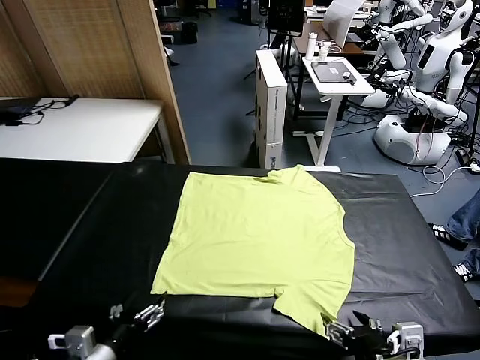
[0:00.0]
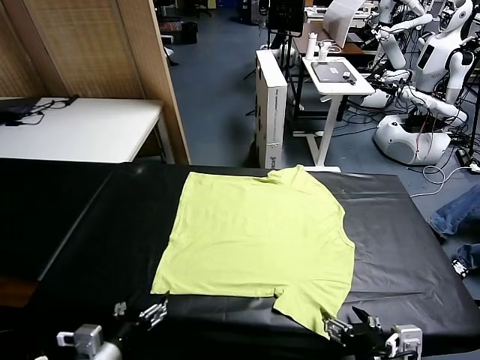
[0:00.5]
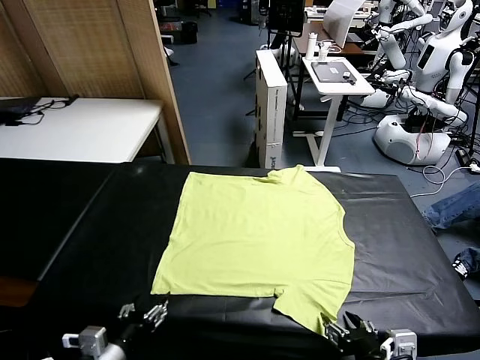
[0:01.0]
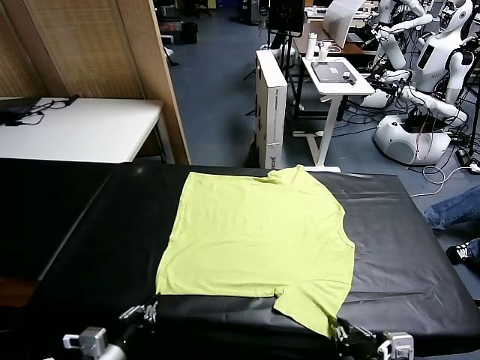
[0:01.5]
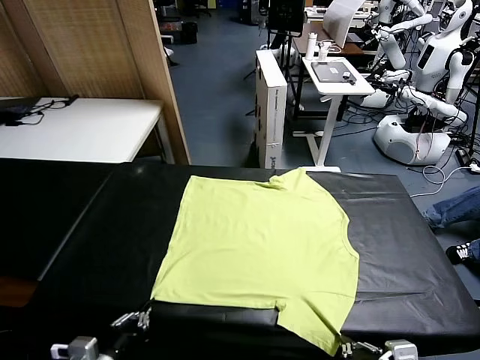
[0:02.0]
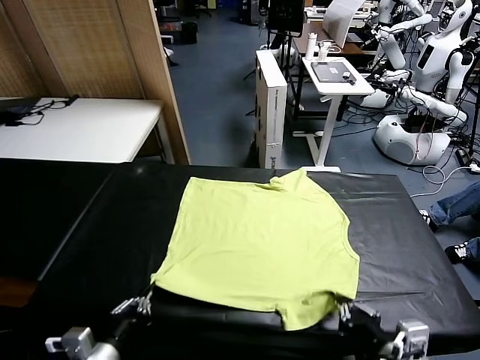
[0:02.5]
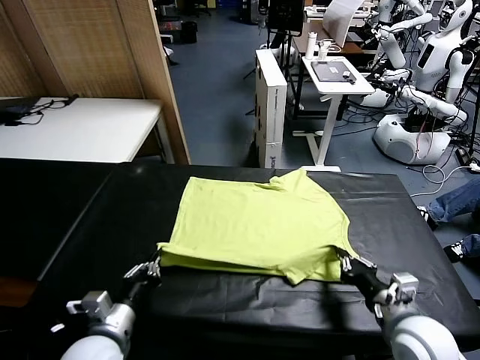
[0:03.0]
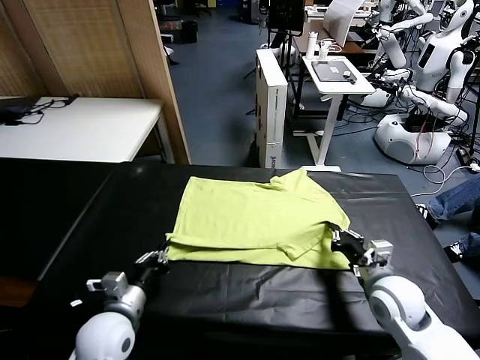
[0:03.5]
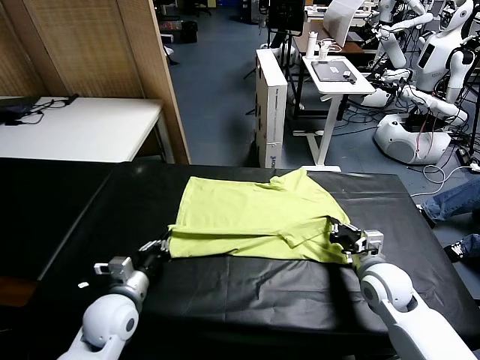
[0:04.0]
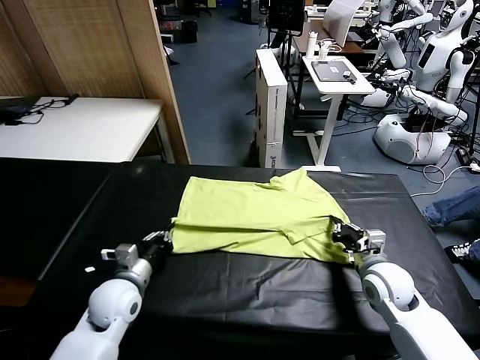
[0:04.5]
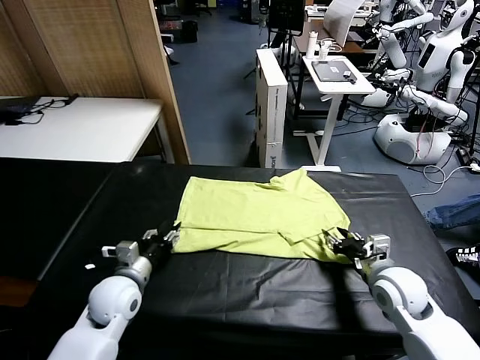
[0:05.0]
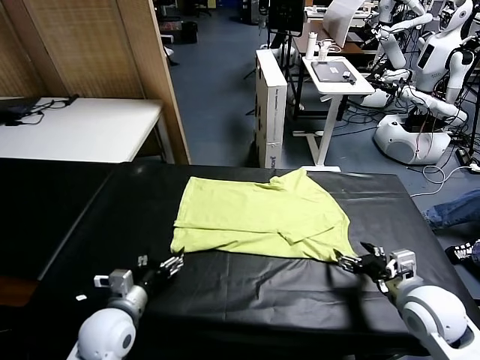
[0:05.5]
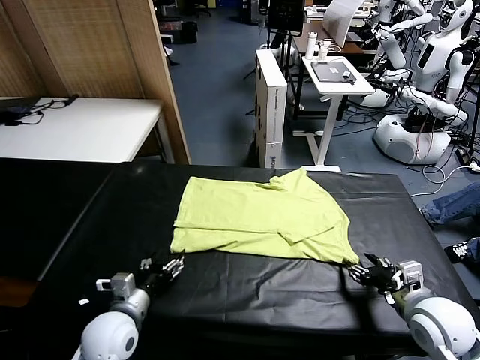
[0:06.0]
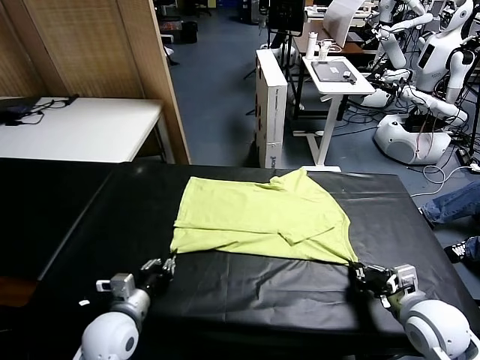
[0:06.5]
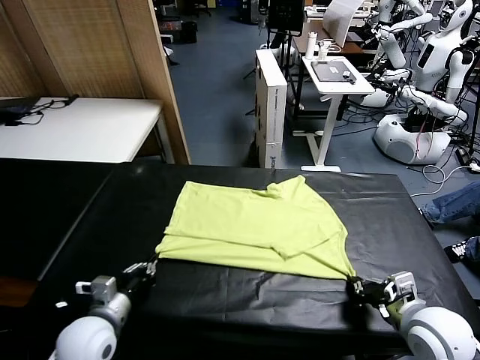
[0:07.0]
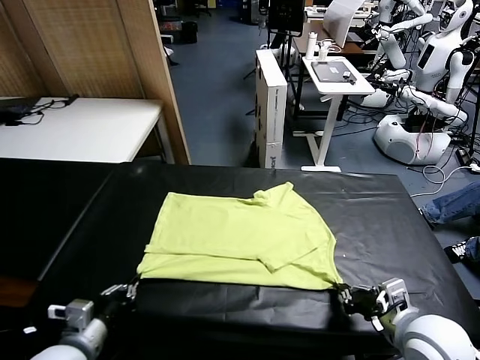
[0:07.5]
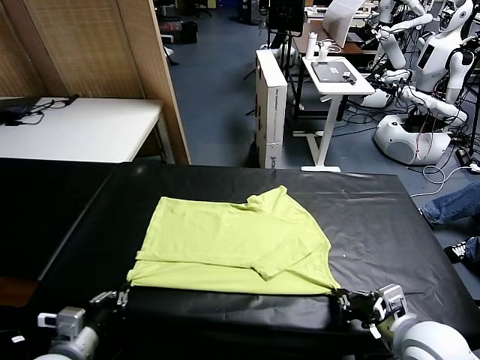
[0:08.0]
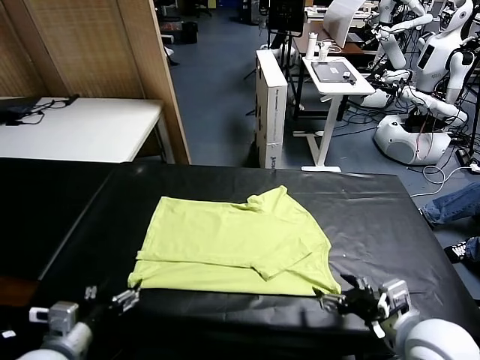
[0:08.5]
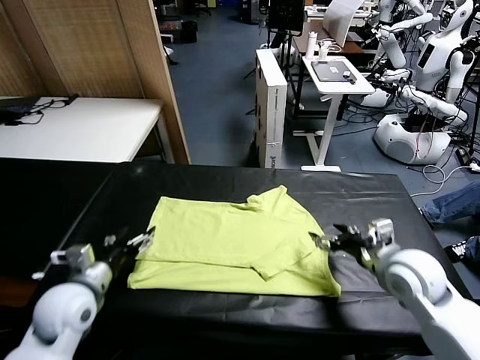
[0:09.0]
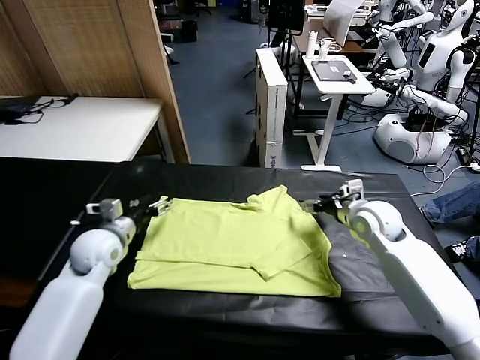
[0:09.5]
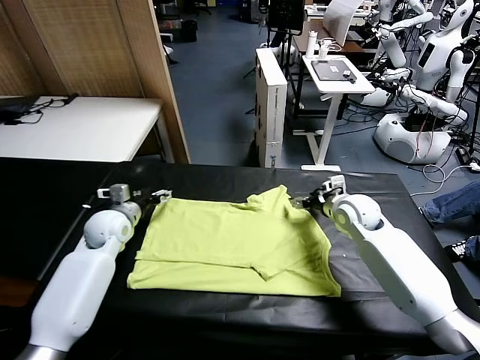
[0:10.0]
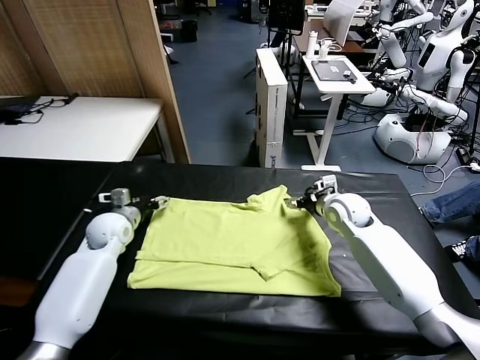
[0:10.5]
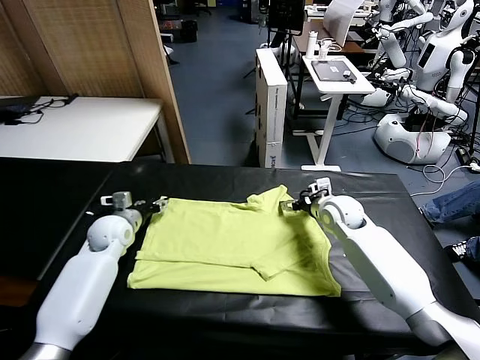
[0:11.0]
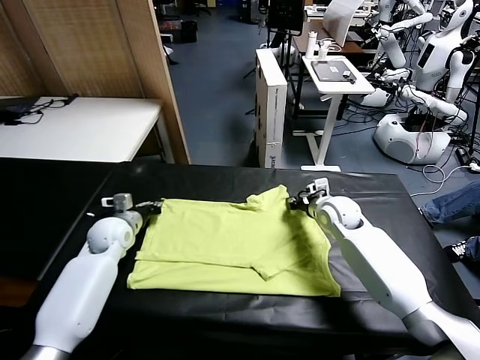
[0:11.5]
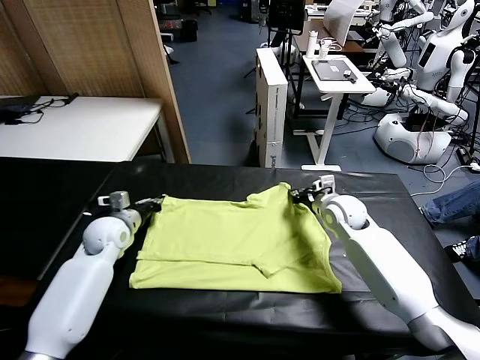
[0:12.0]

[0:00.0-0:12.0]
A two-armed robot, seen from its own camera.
Task of the whole recording: fold and organize the clothes.
Step, 0:00.0 to 0:02.0: use both grippers simultaneously to clamp the lower edge of the clothing fabric.
Step, 0:02.5 to 0:05.0: use both grippers to drag the lower edge of the fabric forward and fold it over the upper edge.
Step, 0:05.5 to 0:08.0: Drag the clothes downward with both gripper.
Step, 0:08.5 to 0:11.5: use both grippers simultaneously to clamp the upper edge of the clothing fabric.
0:02.0 to 0:04.0: The two grippers go approximately 20 cm forward.
0:04.0 to 0:06.0: The right gripper shifts about 10 cm backward, and opens, then closes once more; the left gripper opens up.
0:06.0 to 0:08.0: The left gripper moves backward, to the left and upward, about 10 cm, and closes, while the right gripper moves backward and to the left, roughly 10 cm, and opens.
0:08.0 to 0:10.0: Both grippers travel together forward, roughly 30 cm. The left gripper opens up.
0:10.0 to 0:12.0: The right gripper closes up, while the left gripper closes.

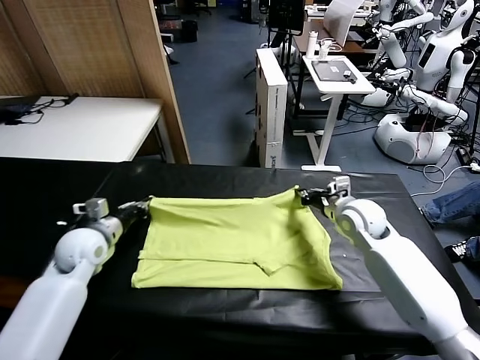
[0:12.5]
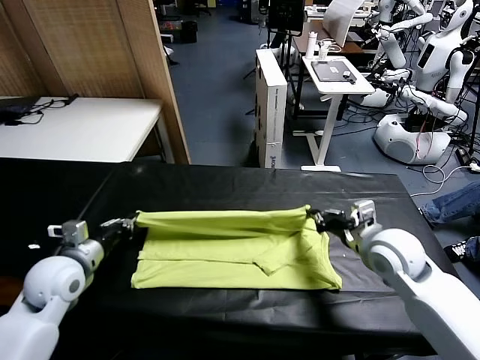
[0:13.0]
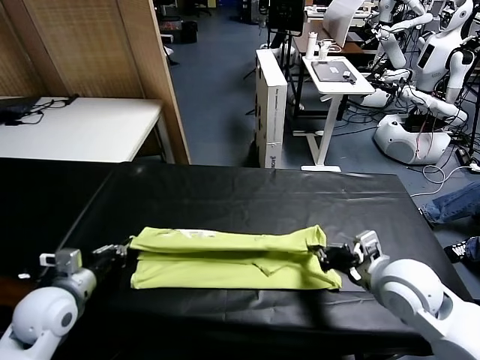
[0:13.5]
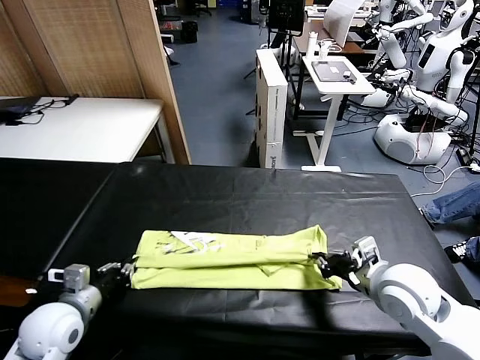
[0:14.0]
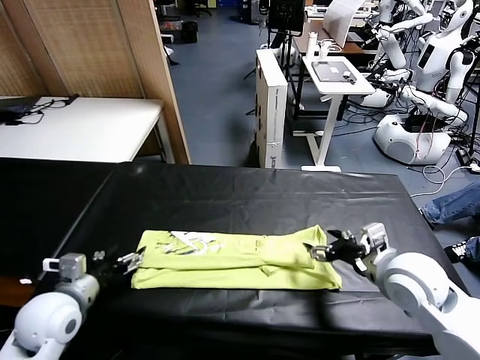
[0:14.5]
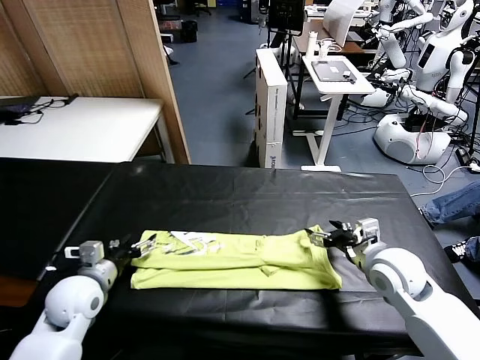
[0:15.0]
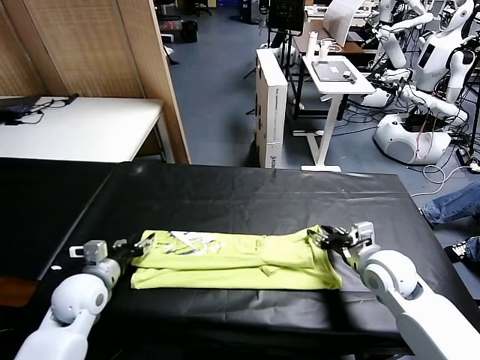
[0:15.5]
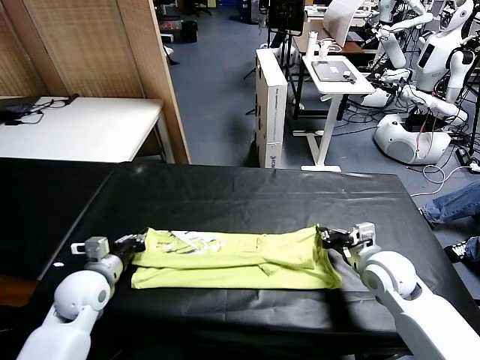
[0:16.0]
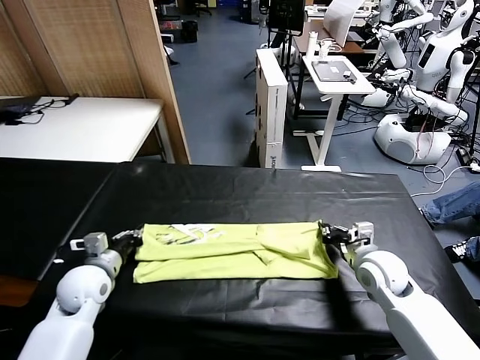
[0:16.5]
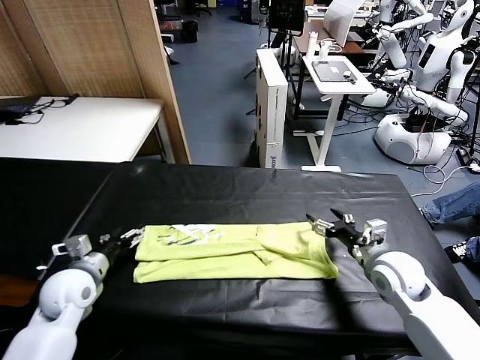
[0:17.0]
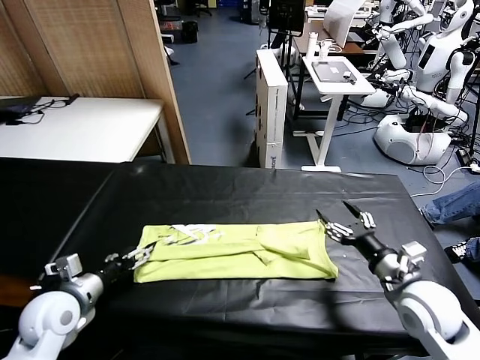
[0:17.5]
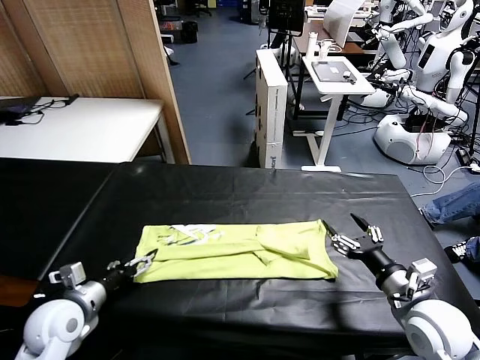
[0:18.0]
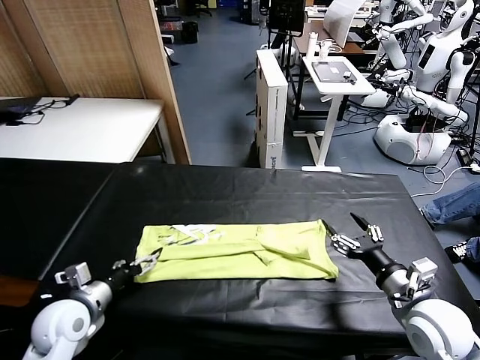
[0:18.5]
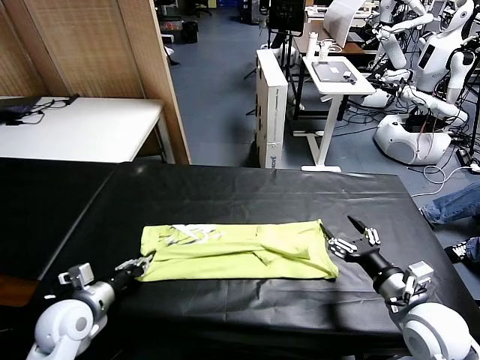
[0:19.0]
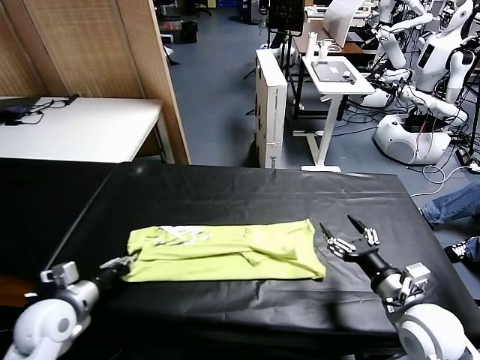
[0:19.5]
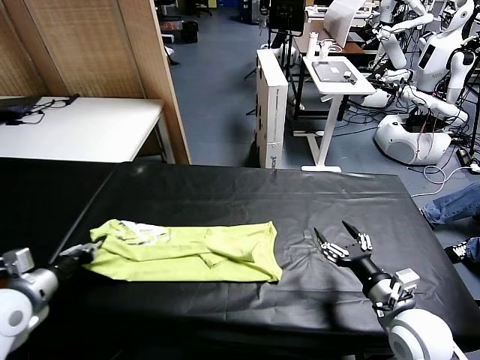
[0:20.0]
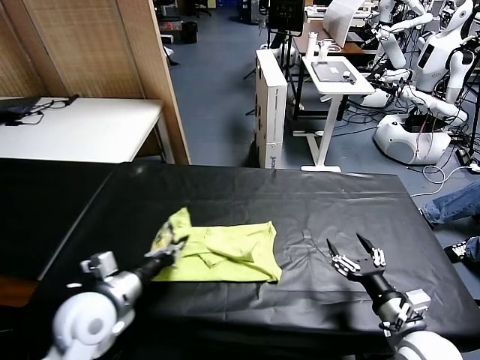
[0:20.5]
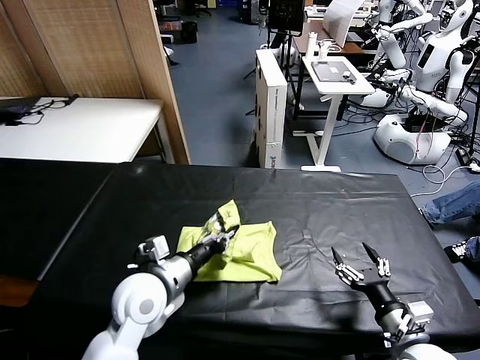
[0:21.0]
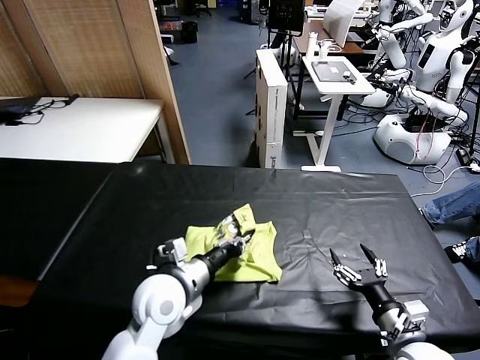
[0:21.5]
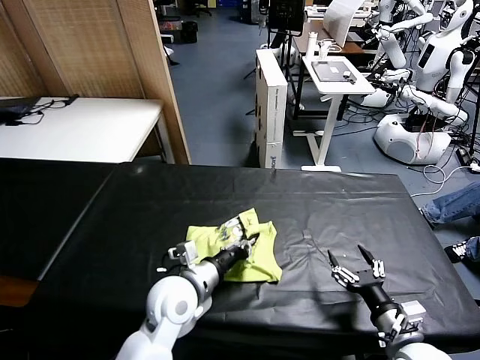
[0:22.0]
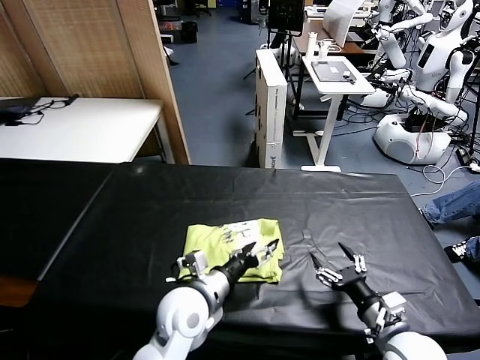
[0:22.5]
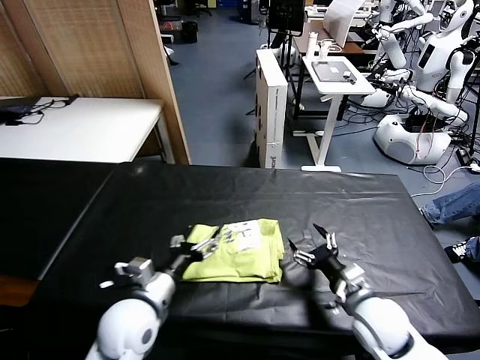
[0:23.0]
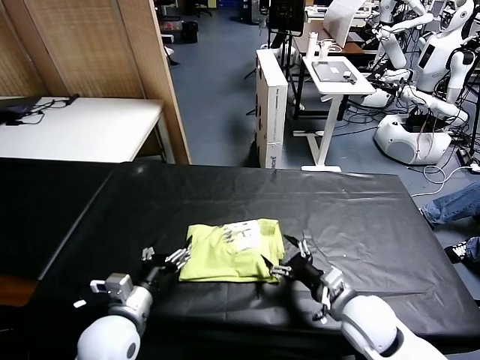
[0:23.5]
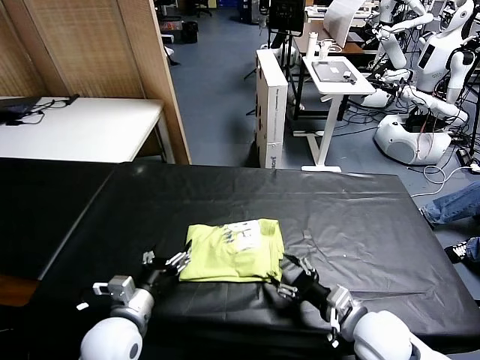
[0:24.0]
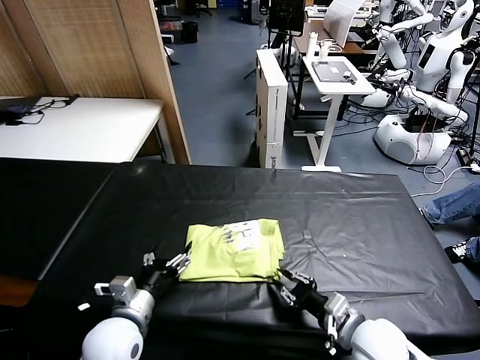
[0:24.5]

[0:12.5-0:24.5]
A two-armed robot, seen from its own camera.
Task of the whole recording: fold and organize the clothes.
Step, 0:12.5 to 0:14.0: use both grippers to drag the upper edge of the fabric backward and fold it over the lower edge.
Step, 0:14.5 to 0:19.0: use the left gripper to clamp the left edge of the fabric.
Step, 0:19.5 to 0:22.5: use the left gripper to drag the left edge of the fabric to the left and folds it over the right edge.
0:12.5 to 0:14.5: Both grippers move backward, roughly 10 cm. The left gripper opens up. The right gripper opens up.
0:14.5 to 0:16.5: The left gripper heads forward and downward, covering about 10 cm, and closes. Meanwhile the right gripper shifts approximately 10 cm downward, and closes.
0:16.5 to 0:18.5: The left gripper shifts some 10 cm backward, and opens. The right gripper shifts about 10 cm backward, and opens.
0:18.5 to 0:20.5: The left gripper goes about 10 cm to the right and upward, and closes. Meanwhile the right gripper moves approximately 5 cm.
0:20.5 to 0:22.5: The left gripper heads to the right, covering about 15 cm, and opens.
0:22.5 to 0:24.5: The right gripper is displaced to the left by some 5 cm, and closes. Meanwhile the left gripper is displaced to the left and backward by roughly 15 cm.

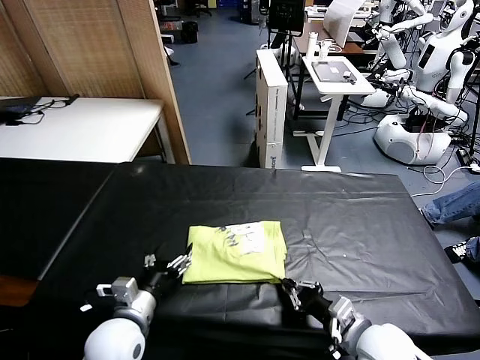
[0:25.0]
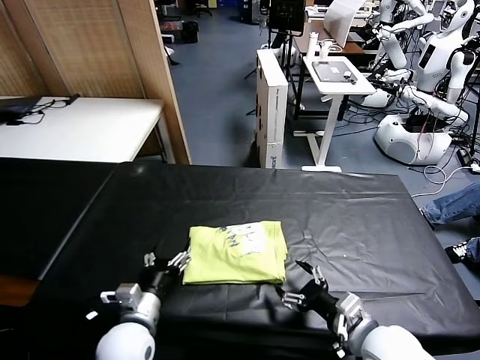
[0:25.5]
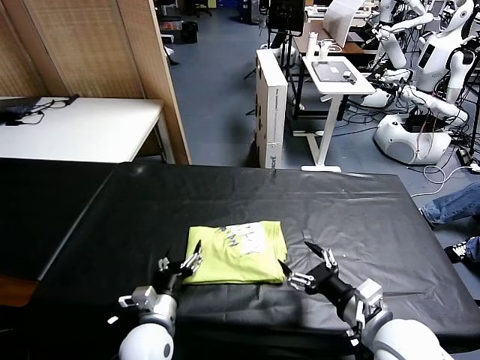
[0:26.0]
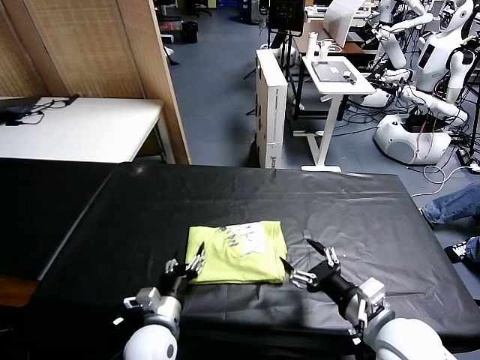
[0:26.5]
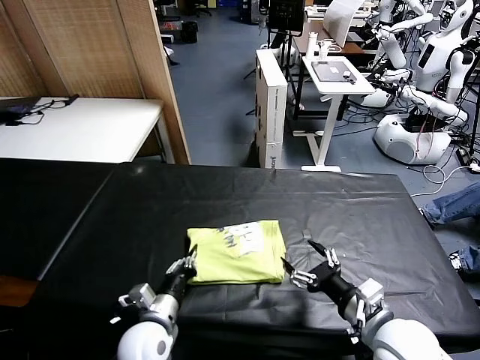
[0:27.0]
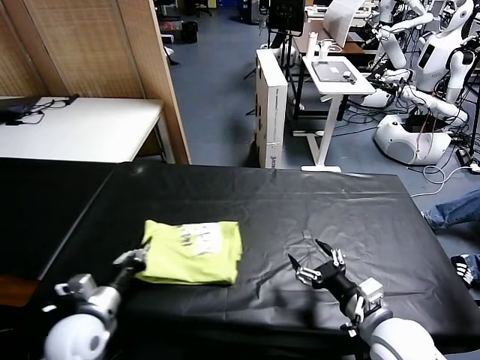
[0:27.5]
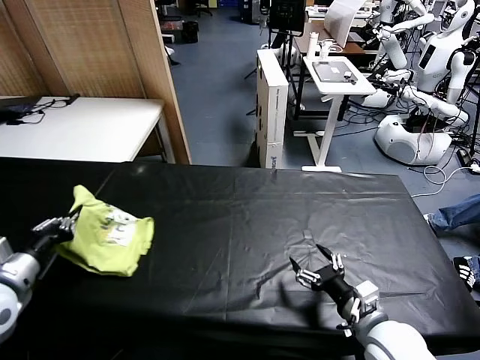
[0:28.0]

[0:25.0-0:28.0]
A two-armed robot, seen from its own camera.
Task of the whole recording: fold and organize the clothes.
0:25.0 to 0:26.5: The left gripper is displaced downward by approximately 5 cm. The right gripper heads upward, covering some 5 cm, and opens its fingers.
0:26.5 to 0:28.0: The right gripper heads downward, covering approximately 5 cm. Meanwhile the left gripper goes some 30 cm to the left and upward, and closes up.
